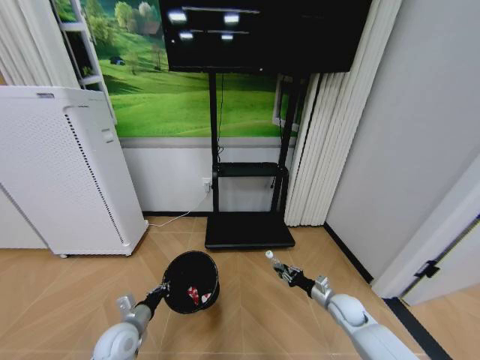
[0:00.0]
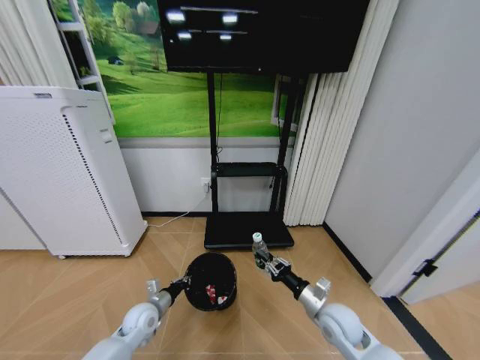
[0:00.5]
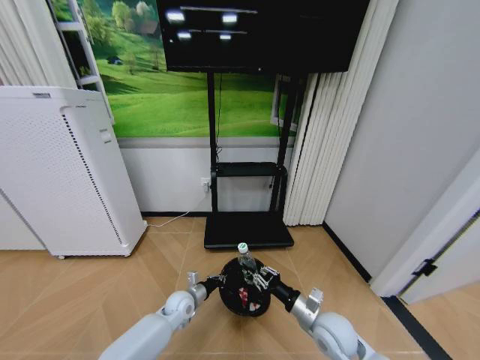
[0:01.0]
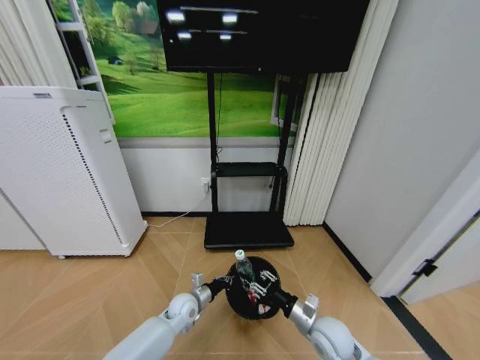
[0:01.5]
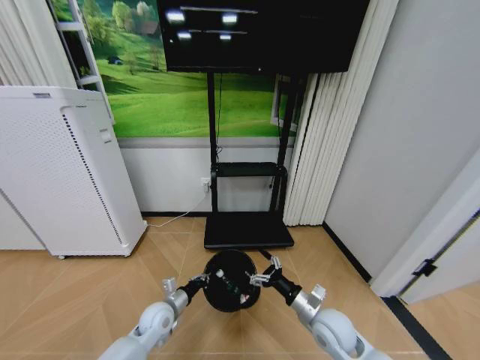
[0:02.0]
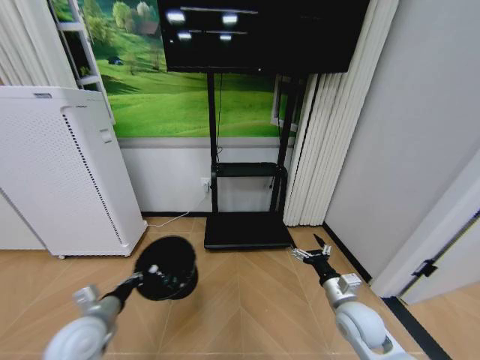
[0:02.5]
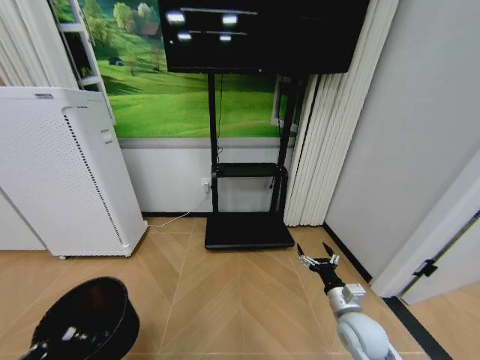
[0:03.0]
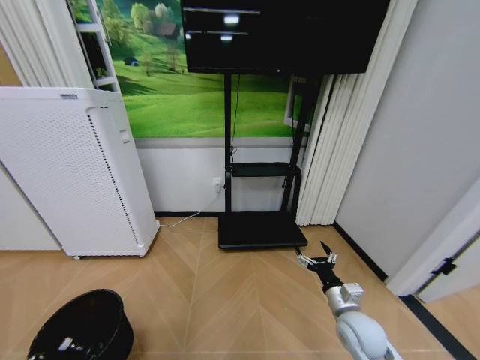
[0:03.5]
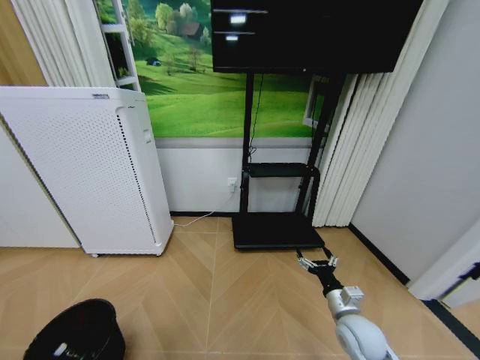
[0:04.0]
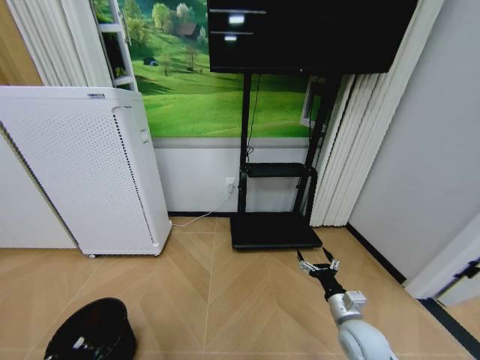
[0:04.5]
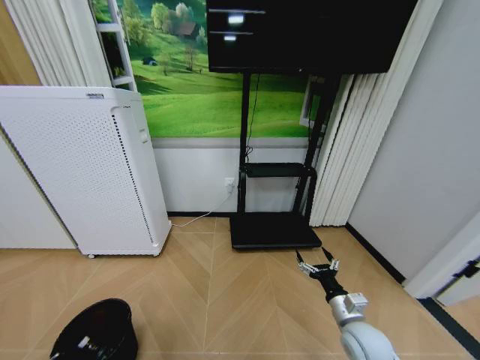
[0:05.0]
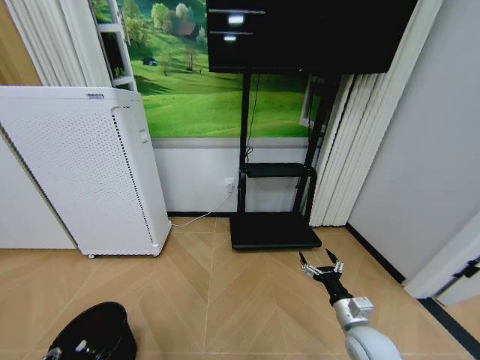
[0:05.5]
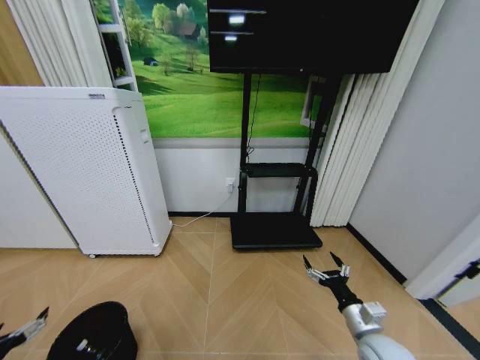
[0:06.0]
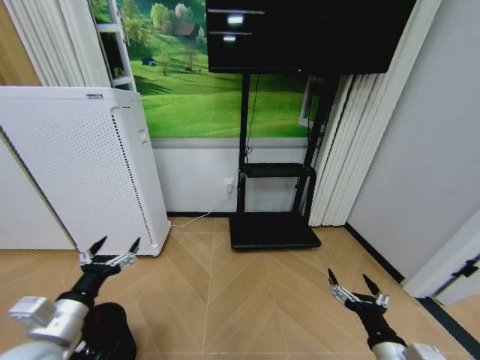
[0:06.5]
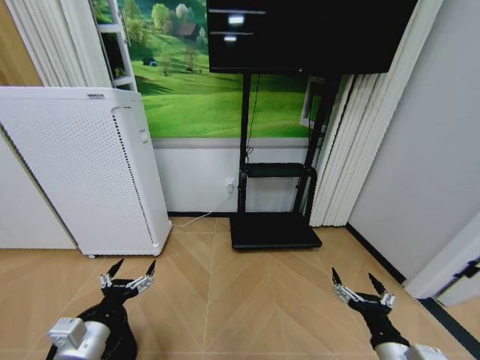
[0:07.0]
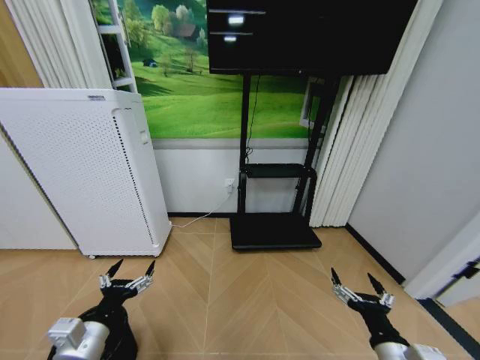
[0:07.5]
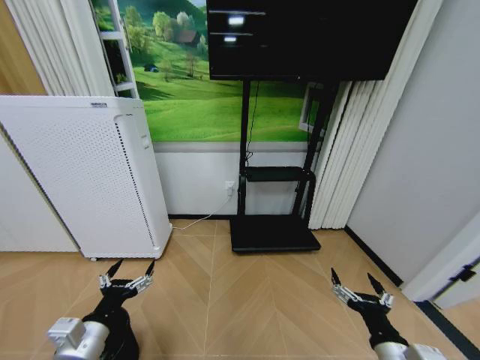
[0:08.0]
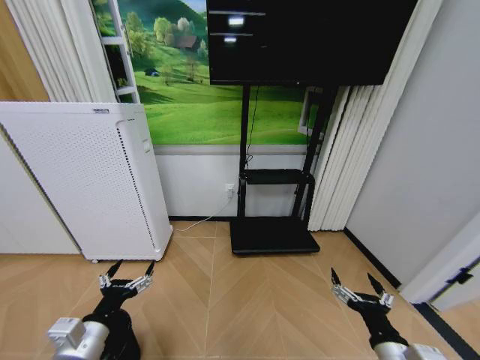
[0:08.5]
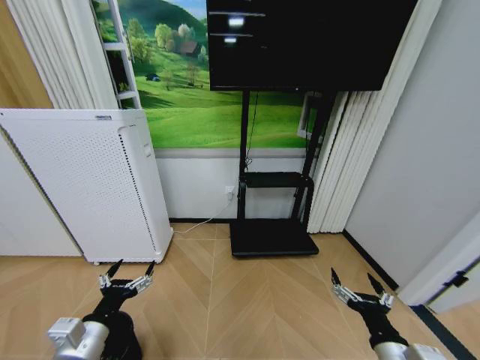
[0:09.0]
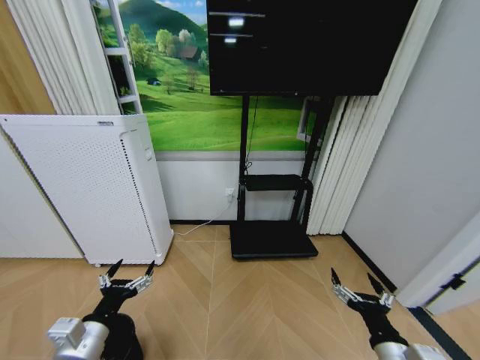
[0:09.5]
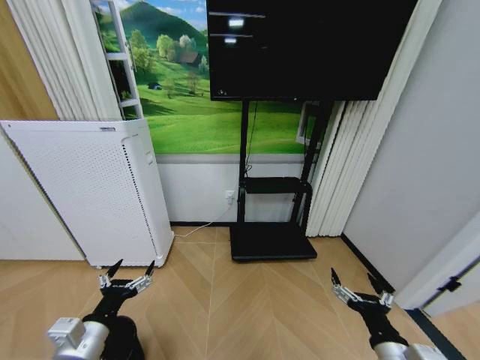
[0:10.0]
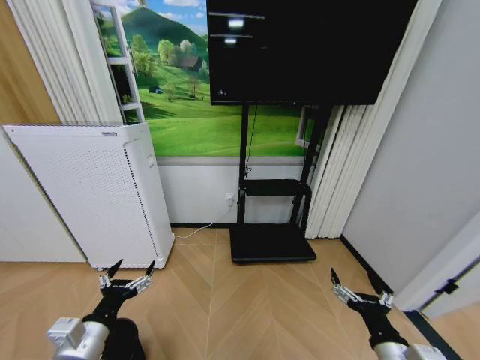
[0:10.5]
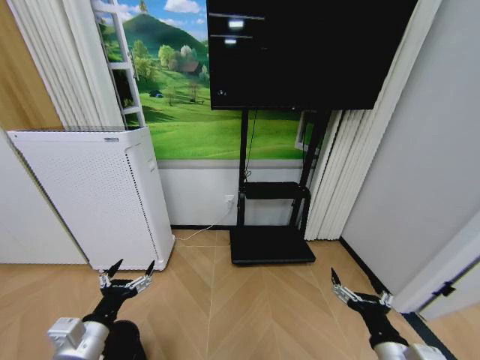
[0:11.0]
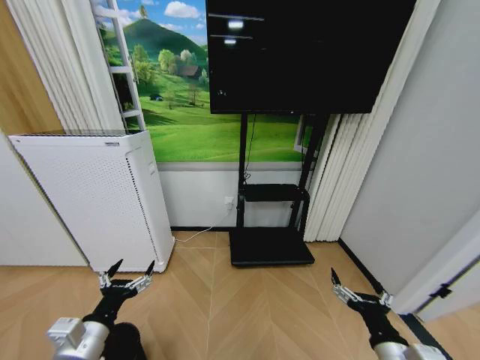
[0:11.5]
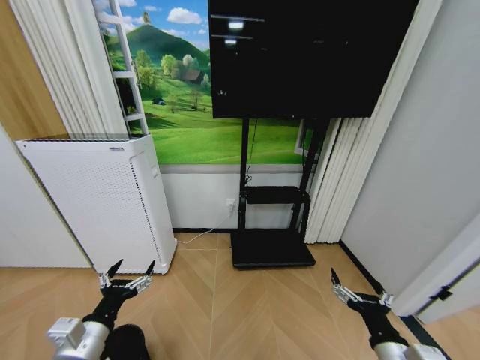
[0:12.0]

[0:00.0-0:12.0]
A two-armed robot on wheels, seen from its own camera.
Task of the whole recording: Pick up the trash bin and place the garbage on the floor into it.
0:00.0 to 0:02.0: The right gripper moves to the left, upward and backward, approximately 20 cm, and opens up; the left gripper travels to the right and forward by roughly 10 cm.
0:02.0 to 0:04.0: The left gripper shifts approximately 35 cm to the left and backward. The right gripper shifts about 5 cm to the right.
0:04.0 to 0:06.0: The left gripper shifts by about 5 cm, and opens up. Meanwhile the right gripper travels backward by about 5 cm.
0:06.0 to 0:08.0: The left gripper goes about 20 cm to the right. Meanwhile the right gripper travels backward and upward by approximately 10 cm.
0:08.0 to 0:12.0: The two grippers keep their place.

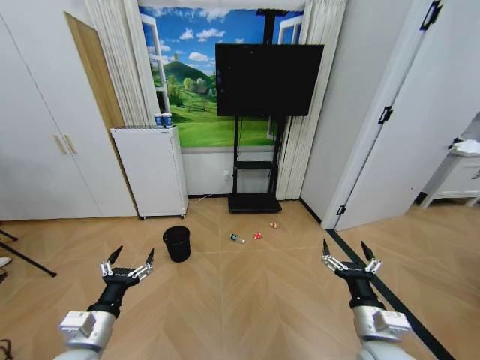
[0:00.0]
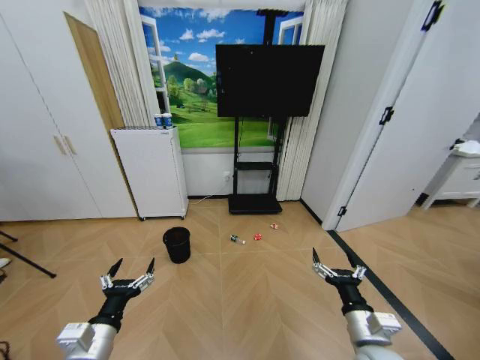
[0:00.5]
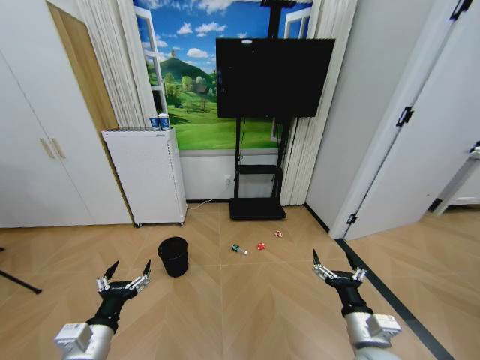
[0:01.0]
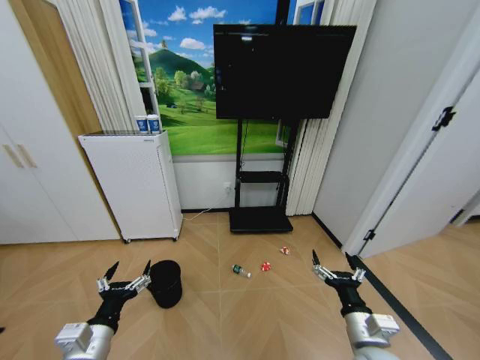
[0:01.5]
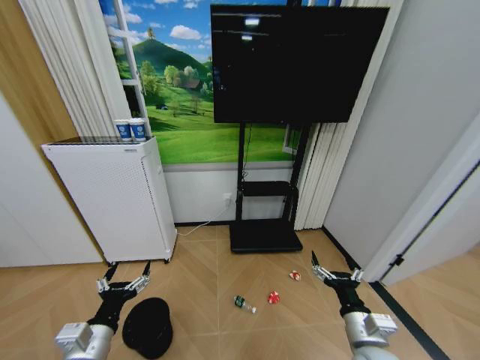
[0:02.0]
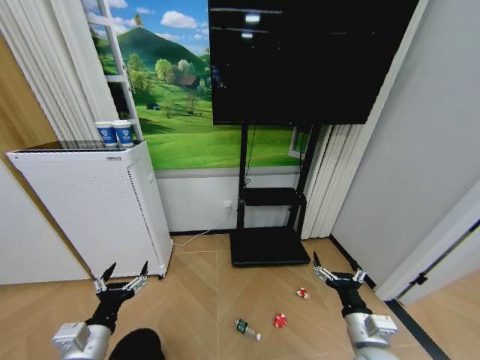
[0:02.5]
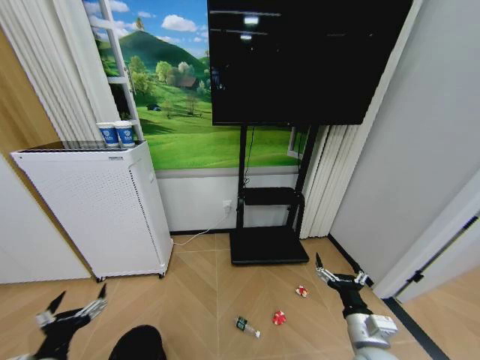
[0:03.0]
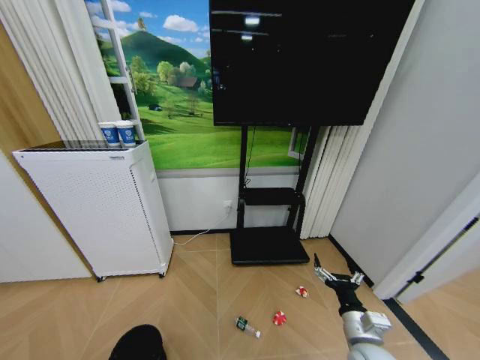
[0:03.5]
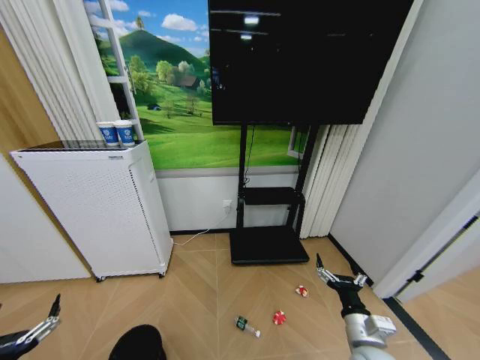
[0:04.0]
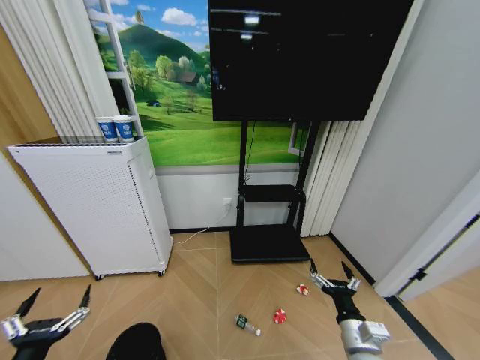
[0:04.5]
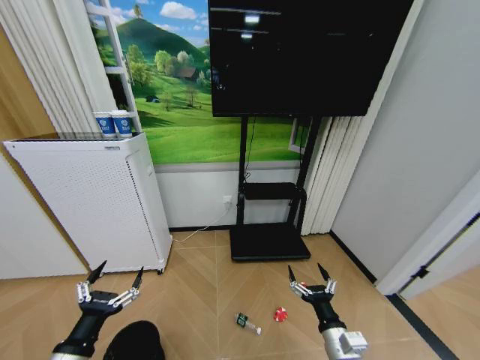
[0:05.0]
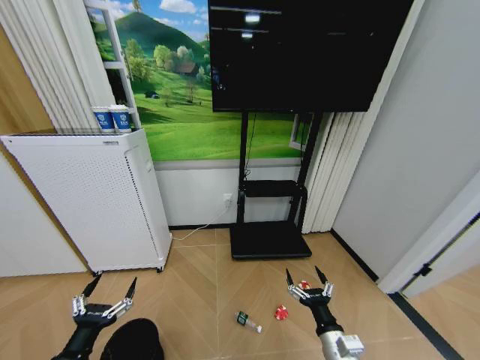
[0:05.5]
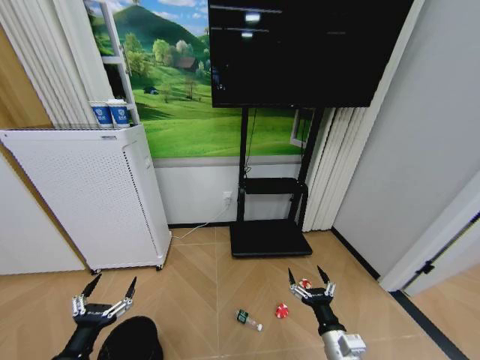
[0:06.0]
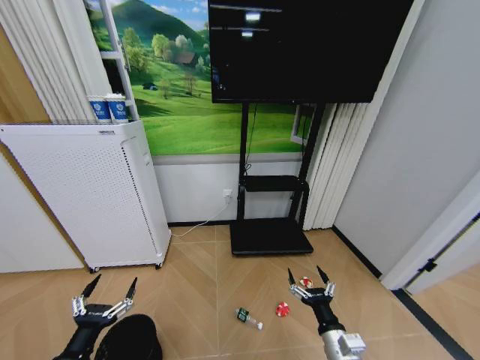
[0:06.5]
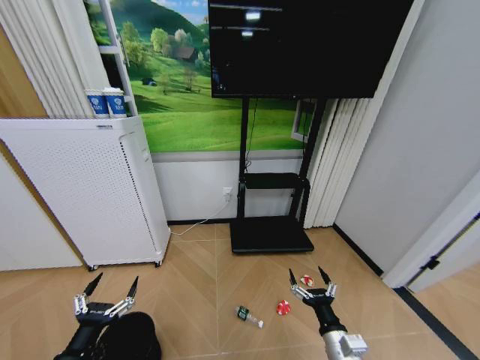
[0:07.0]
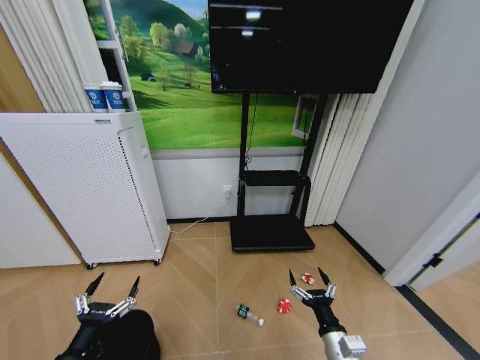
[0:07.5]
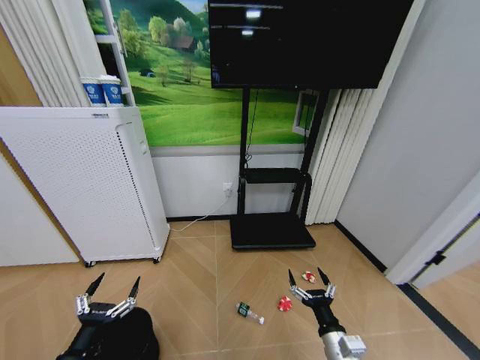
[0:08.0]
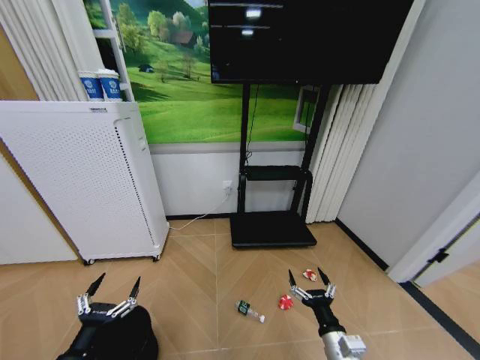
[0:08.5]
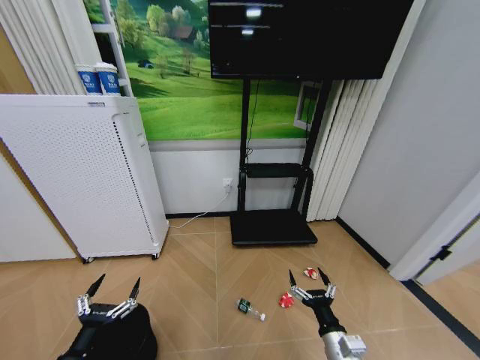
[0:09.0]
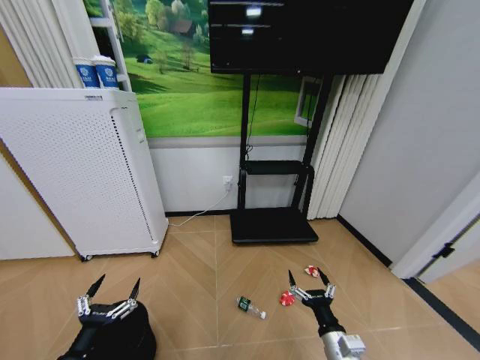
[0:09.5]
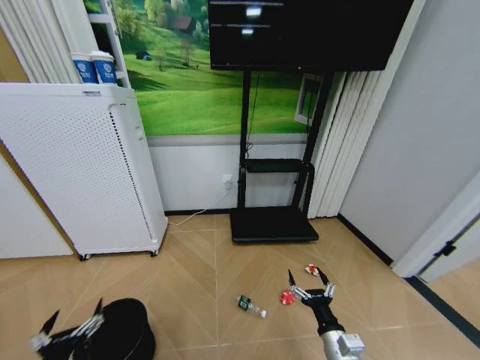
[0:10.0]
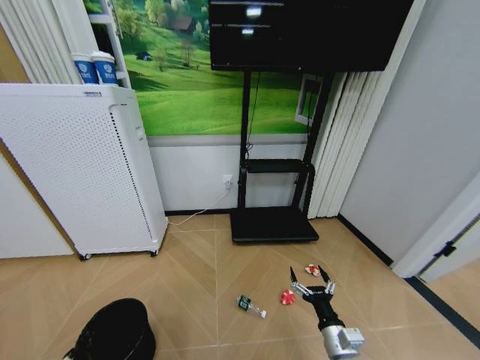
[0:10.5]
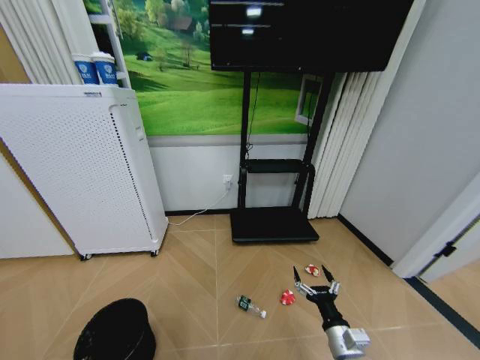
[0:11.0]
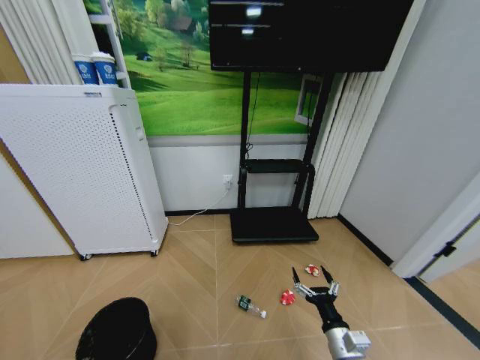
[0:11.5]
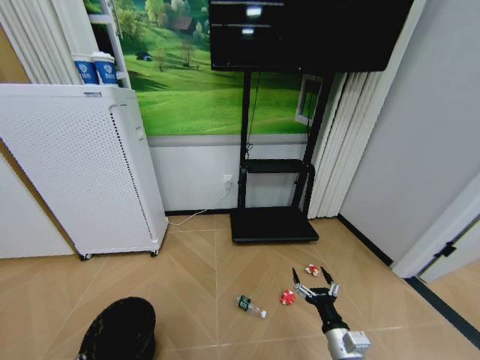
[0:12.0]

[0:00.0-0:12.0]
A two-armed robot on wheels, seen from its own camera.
Task of the whole recording: Pick up the trash bin and place the garbage on the floor into it.
0:02.0 to 0:04.0: The left gripper moves to the left and backward, approximately 15 cm.
0:04.0 to 0:06.0: The left gripper heads to the right, covering some 10 cm; the right gripper shifts by roughly 5 cm.
0:06.0 to 0:08.0: Neither gripper changes place.
0:10.0 to 0:12.0: The left gripper moves downward and to the left, approximately 10 cm, and closes.

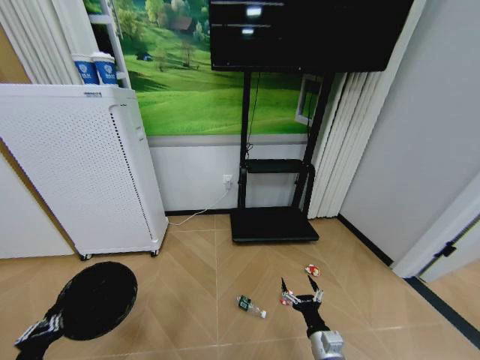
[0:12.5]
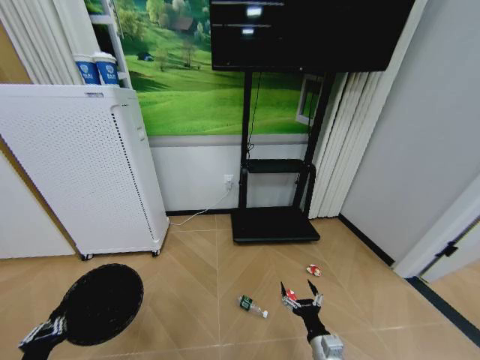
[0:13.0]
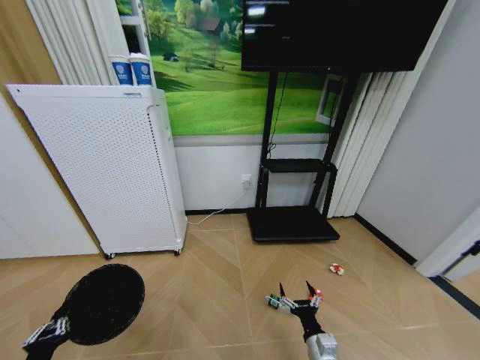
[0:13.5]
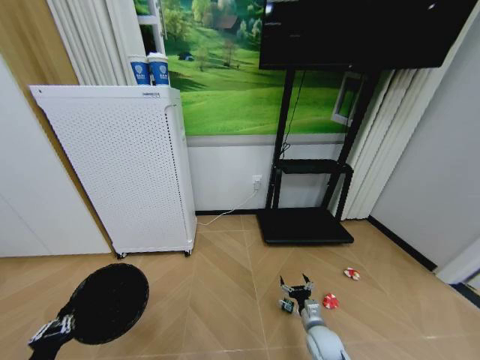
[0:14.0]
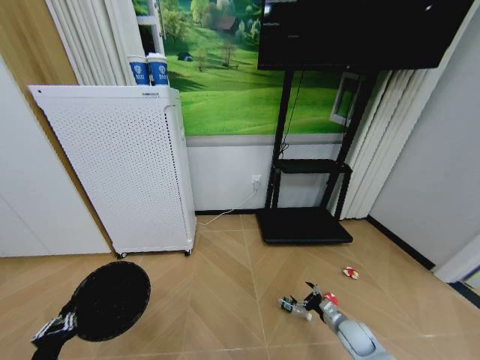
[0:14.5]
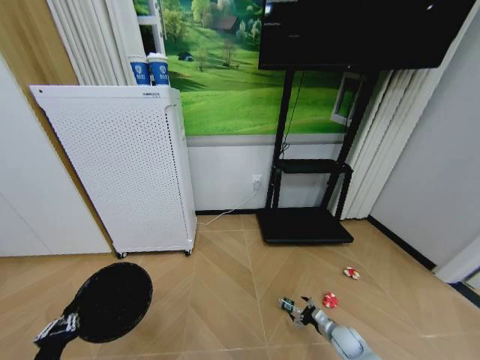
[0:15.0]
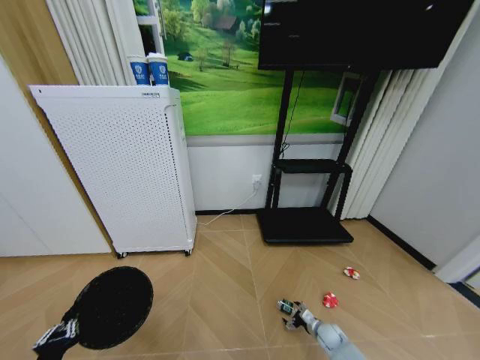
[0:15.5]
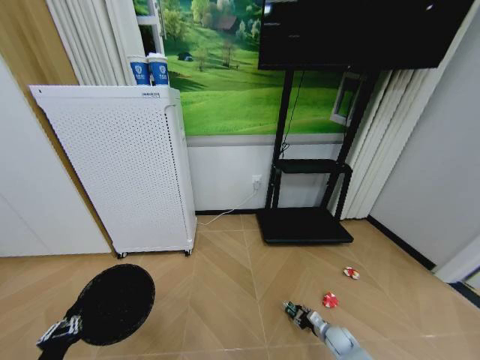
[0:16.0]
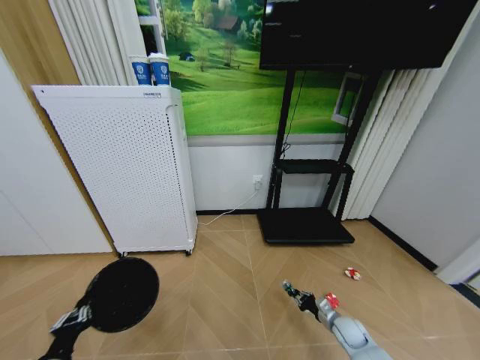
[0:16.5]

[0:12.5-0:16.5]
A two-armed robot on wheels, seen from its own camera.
Task of the whole recording: Pick up the trash bin and place the garbage on the floor into it.
0:12.5 to 0:14.5: The right gripper goes approximately 20 cm to the right, forward and downward.
0:14.5 to 0:16.5: The right gripper goes downward and returns, about 10 cm each way, and closes.
